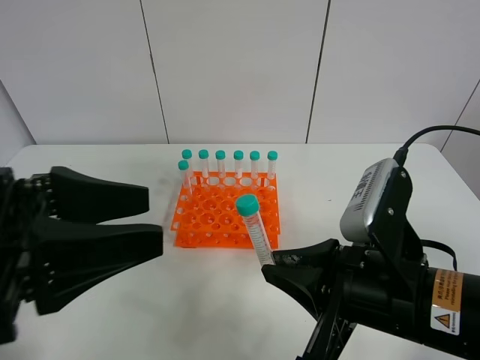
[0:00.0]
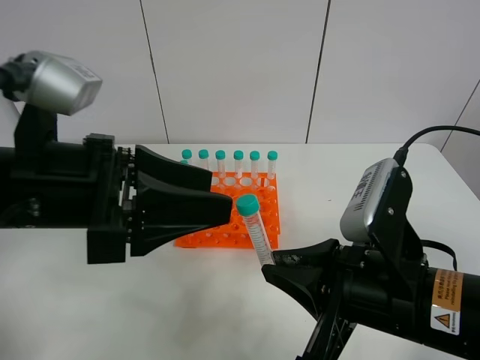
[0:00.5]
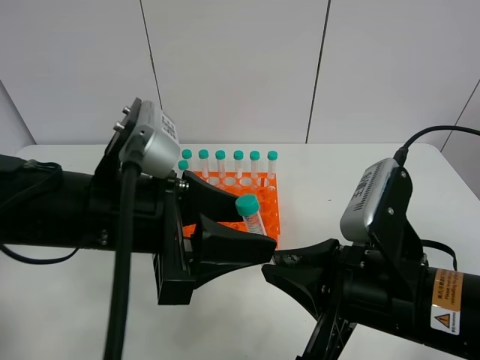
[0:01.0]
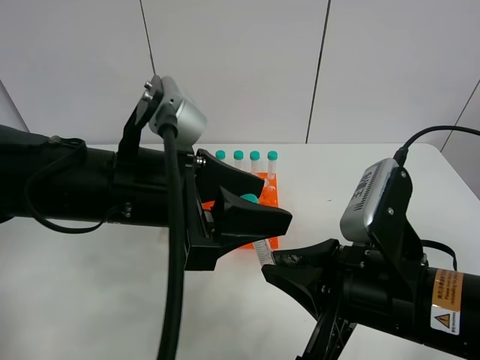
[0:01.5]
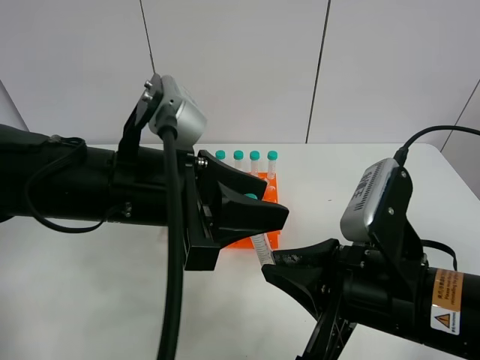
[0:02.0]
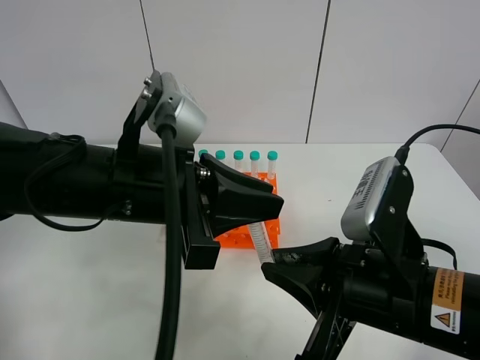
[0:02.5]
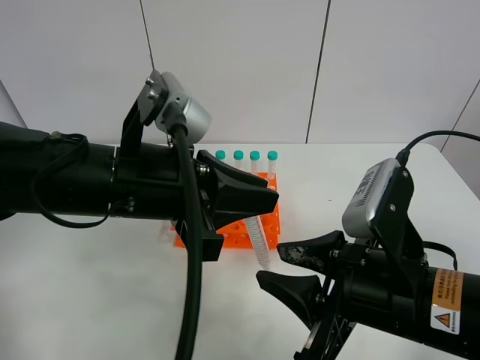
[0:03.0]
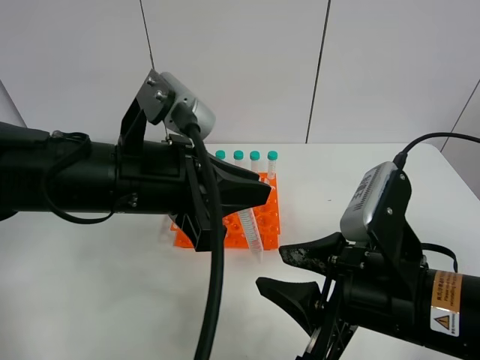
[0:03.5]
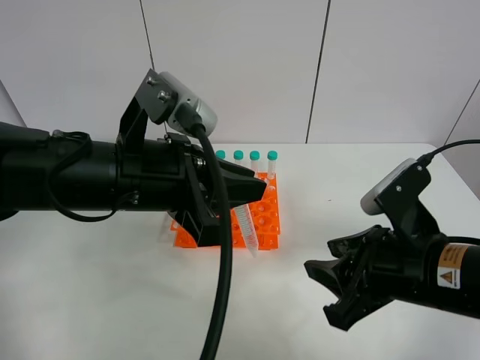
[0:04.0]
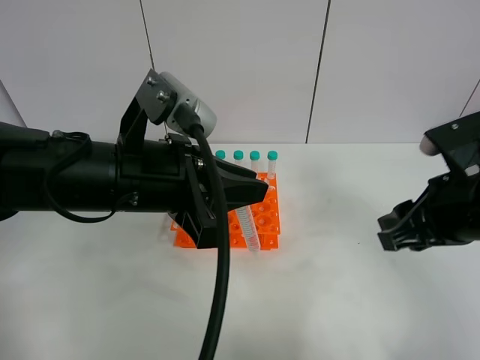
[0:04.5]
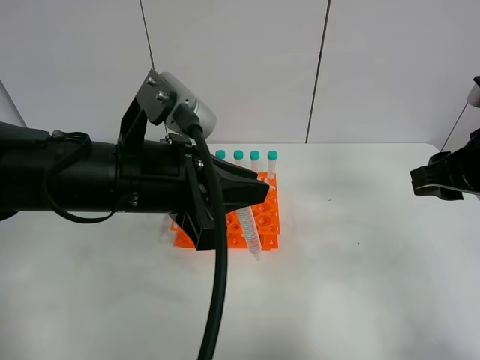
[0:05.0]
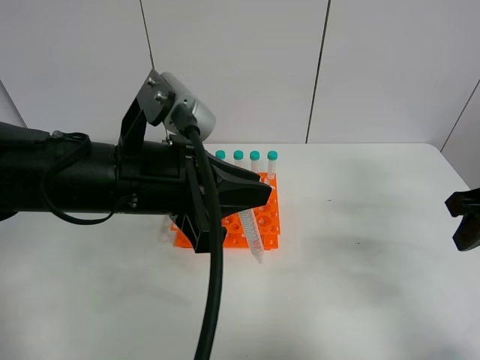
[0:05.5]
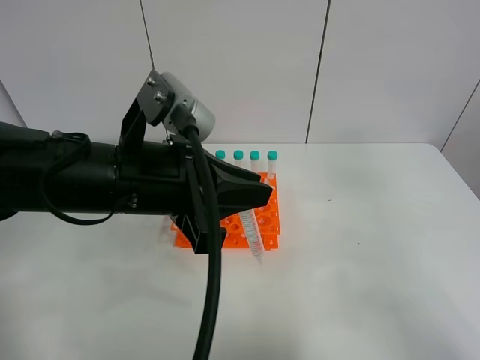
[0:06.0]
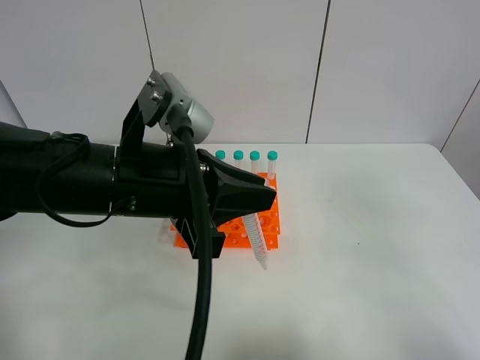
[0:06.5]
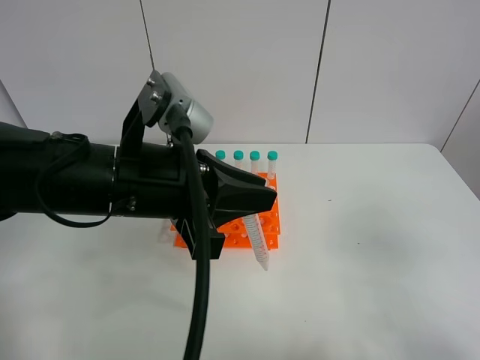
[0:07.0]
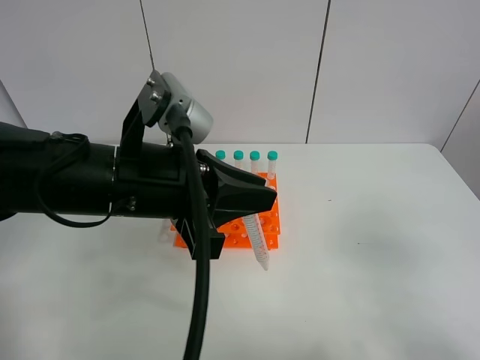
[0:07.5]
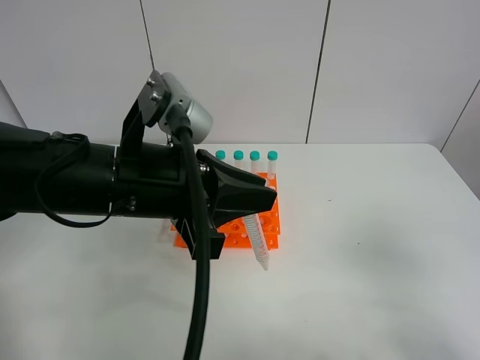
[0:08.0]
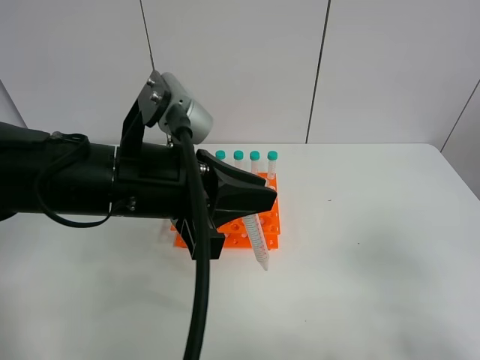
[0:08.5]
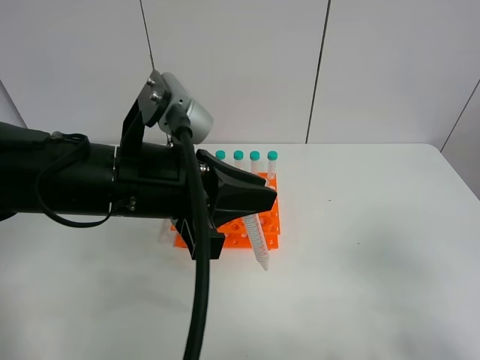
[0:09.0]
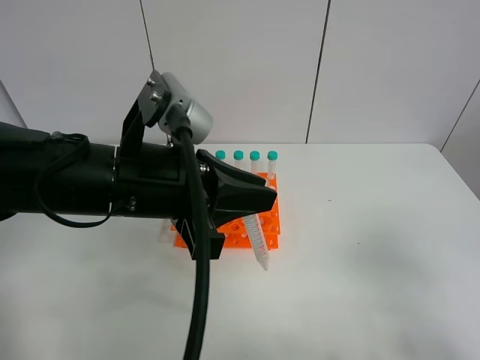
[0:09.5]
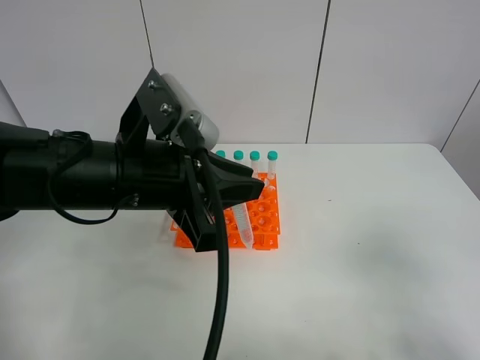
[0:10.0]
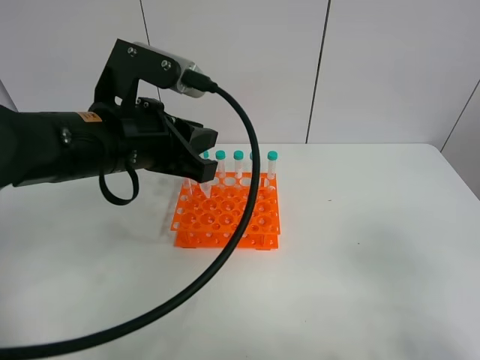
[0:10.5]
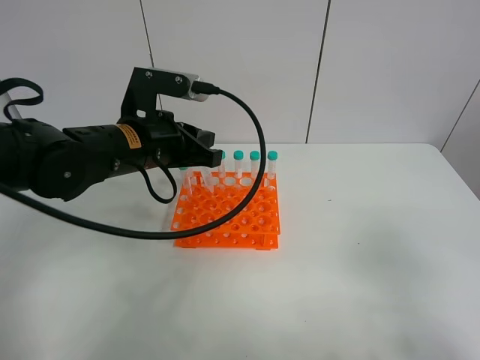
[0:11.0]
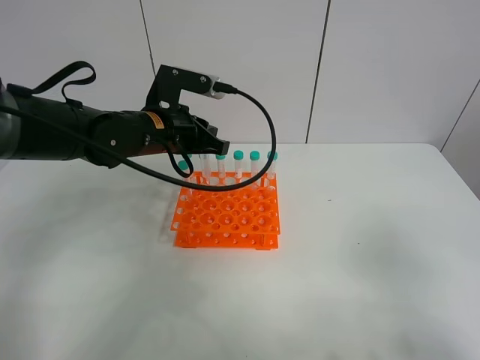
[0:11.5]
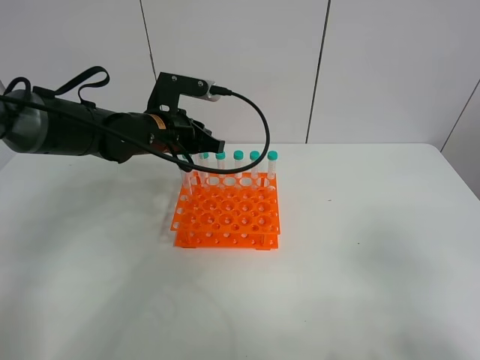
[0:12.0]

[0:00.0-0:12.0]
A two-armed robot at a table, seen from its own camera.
Task of the whole recording: Put the test tube on the table back onto the test tube rack.
Step, 0:00.0 to 0:03.0: Move the test tube from the right gripper to the left gripper.
0:00.0 to 0:02.0: The left gripper moves to the right and forward, roughly 10 cm.
0:02.0 to 0:04.0: The right gripper changes place by about 5 cm, and opens its fingers. The left gripper closes.
0:04.0 to 0:06.0: The right gripper travels upward and to the right by about 20 cm.
0:06.0 to 0:08.0: The right gripper goes some 15 cm backward and downward.
0:08.0 to 0:10.0: There are only small adjustments of the grippers.
0:10.0 to 0:12.0: The left gripper heads forward and downward, covering roughly 20 cm.

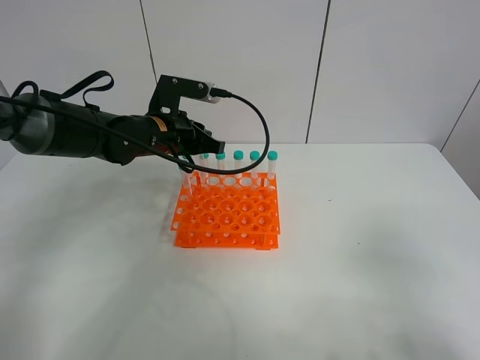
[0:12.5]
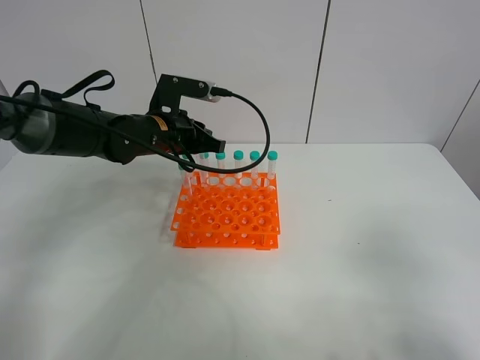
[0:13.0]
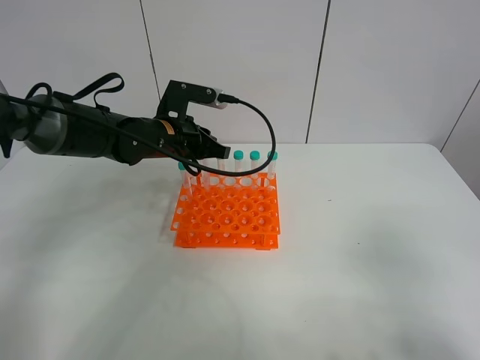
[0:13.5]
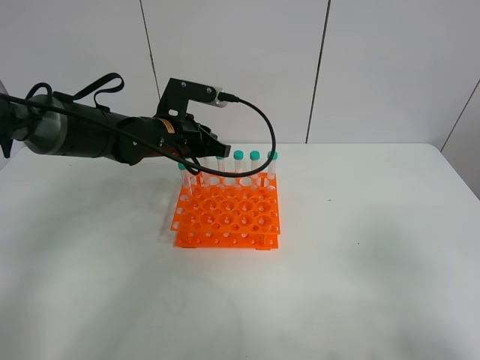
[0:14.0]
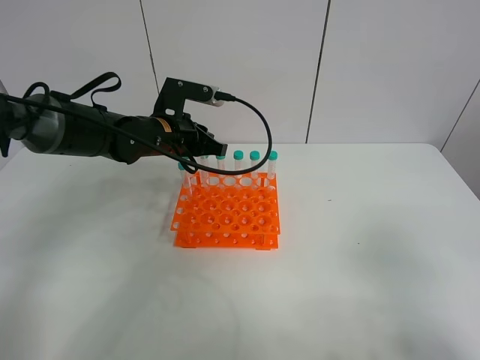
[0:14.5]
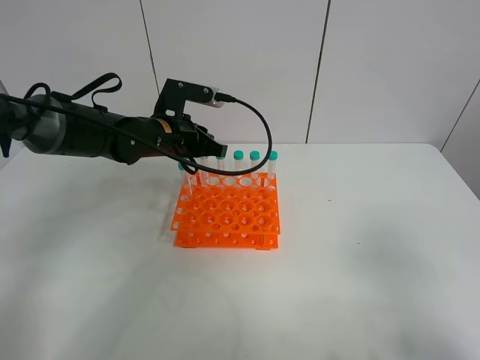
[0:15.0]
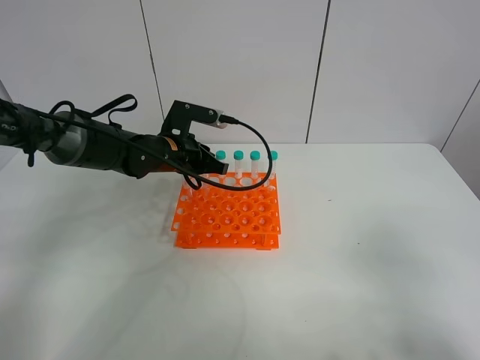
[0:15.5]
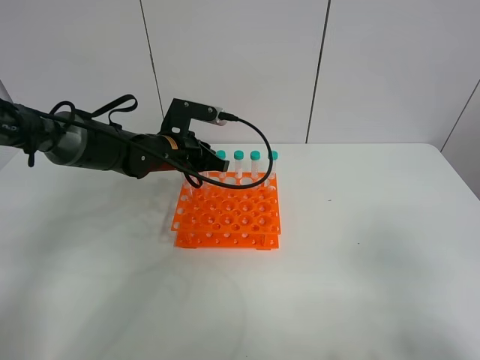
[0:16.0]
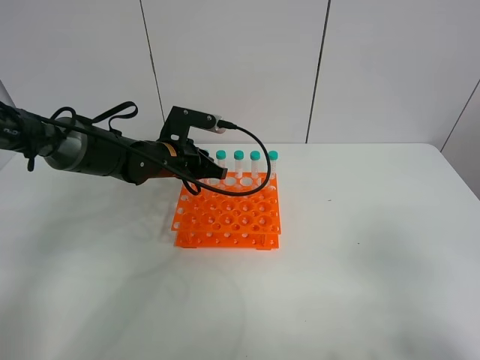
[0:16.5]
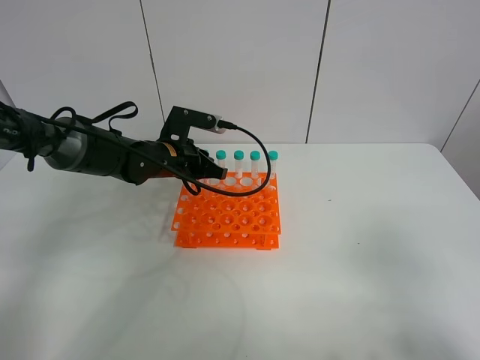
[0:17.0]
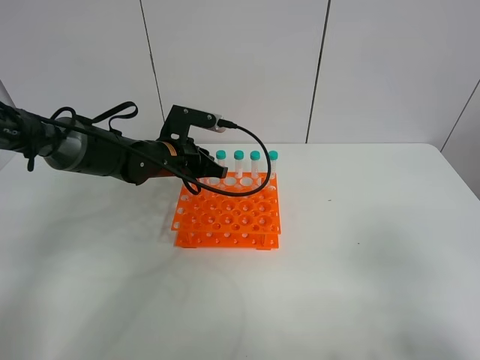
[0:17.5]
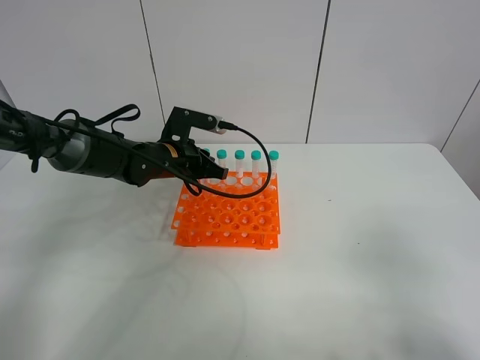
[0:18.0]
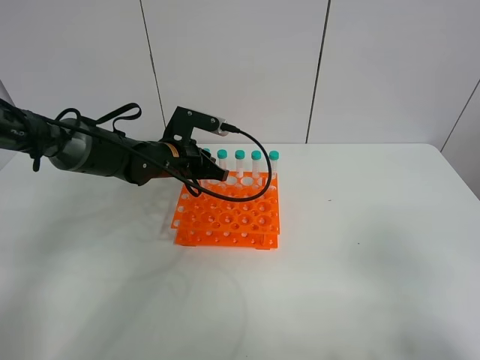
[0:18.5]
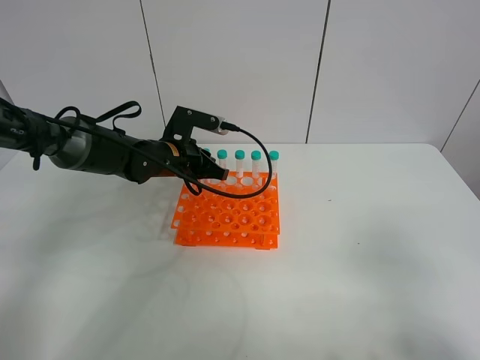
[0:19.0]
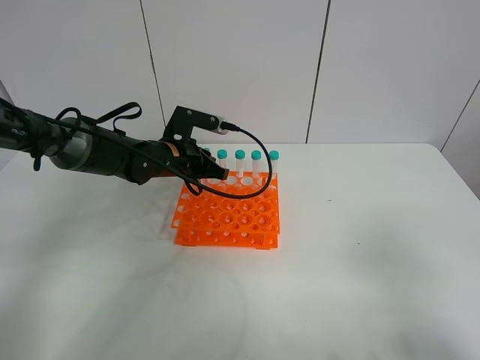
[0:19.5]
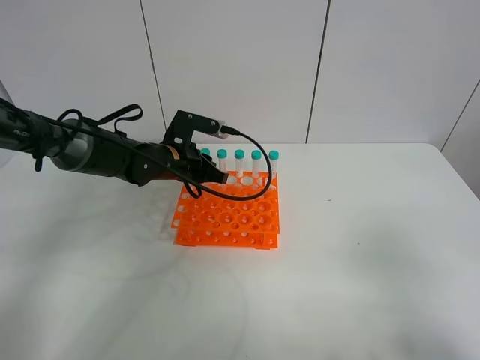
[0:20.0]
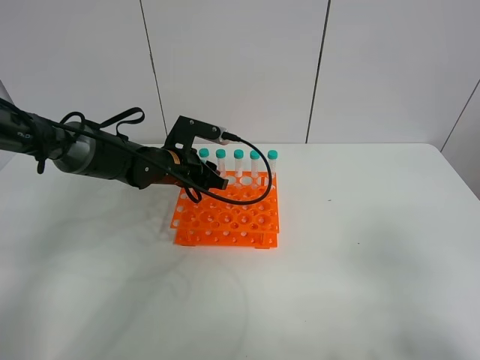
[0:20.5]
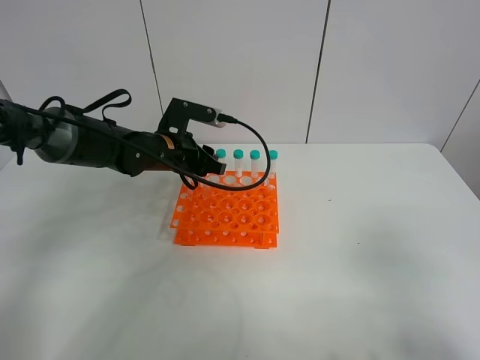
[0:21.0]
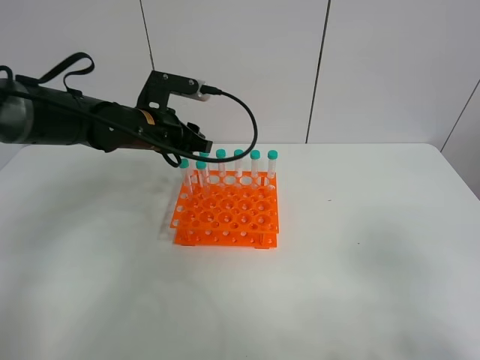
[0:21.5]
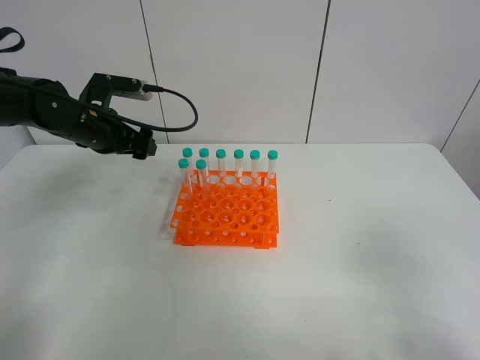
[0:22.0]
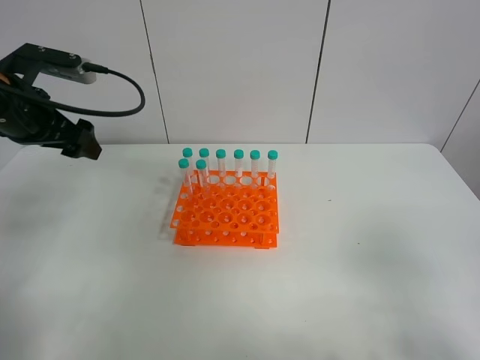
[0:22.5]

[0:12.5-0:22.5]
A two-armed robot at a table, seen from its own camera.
Task of the whole recording: Put the test tube on the table back onto the test tube rack.
Step, 0:12.5 to 0:20.5: Place the test tube on the test tube rack with the left gripper.
0:12.5 to 0:14.5: The two grippers keep their place.
0:14.5 to 0:16.5: There are only small adjustments of the grippers.
0:16.5 to 0:18.5: The two grippers keep their place.
0:18.5 to 0:20.5: The left gripper opens up.
0:20.5 to 0:22.5: The left gripper goes some 25 cm upward, to the left and backward, and opens up.

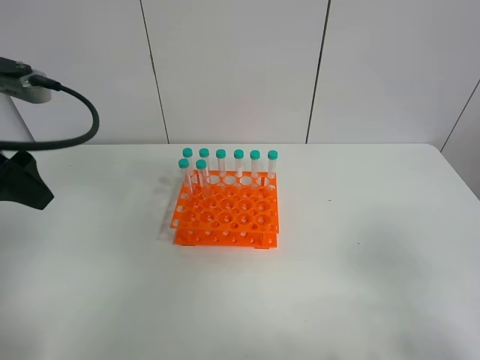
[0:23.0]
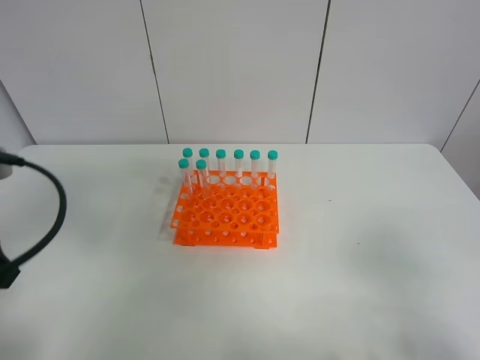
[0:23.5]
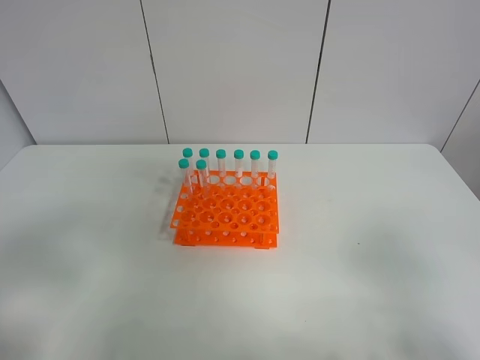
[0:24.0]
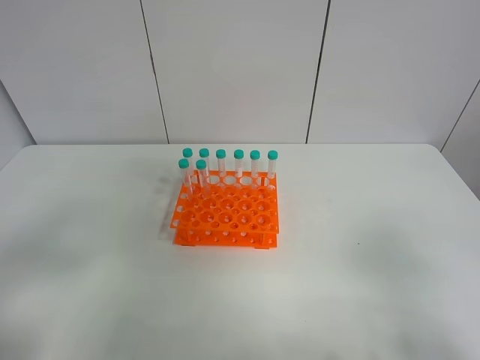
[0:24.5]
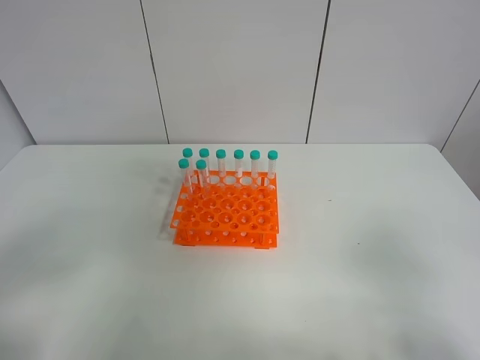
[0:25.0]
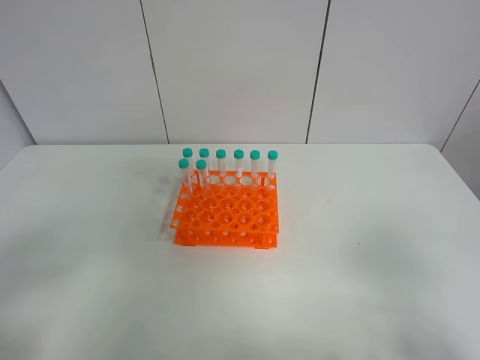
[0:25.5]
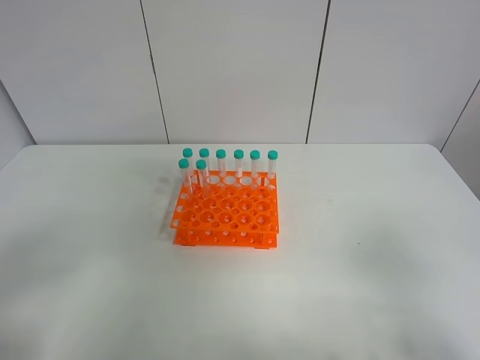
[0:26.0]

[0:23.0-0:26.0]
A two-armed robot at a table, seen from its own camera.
Task of the whole recording: Put the test tube on the table back onto the test tube rack.
0:23.0 to 0:24.5: The left gripper is displaced backward by about 15 cm.
